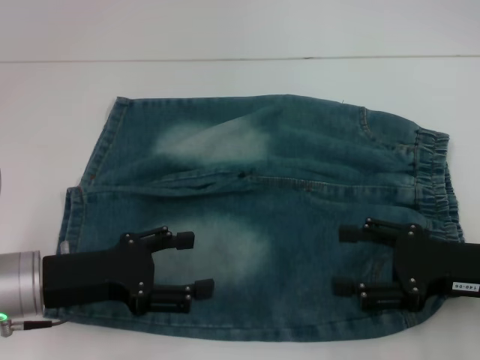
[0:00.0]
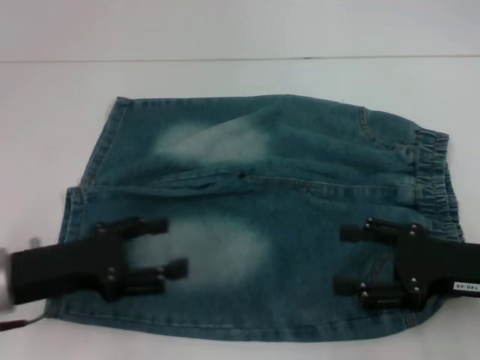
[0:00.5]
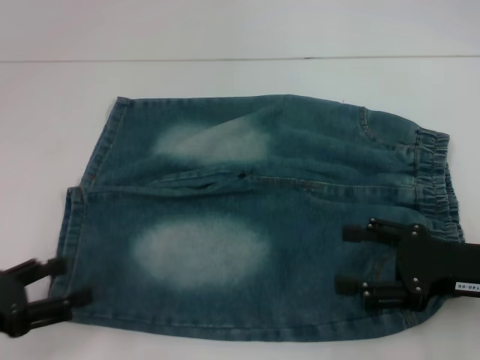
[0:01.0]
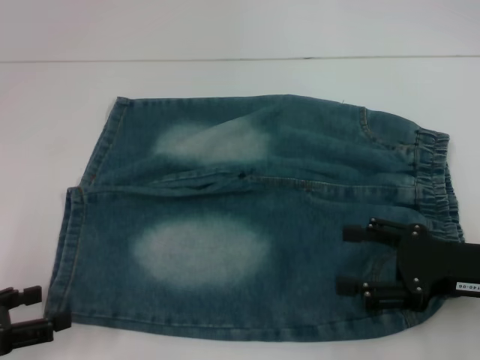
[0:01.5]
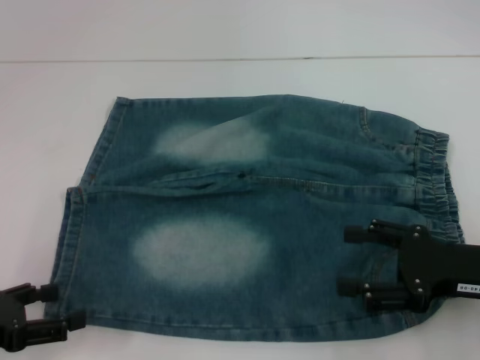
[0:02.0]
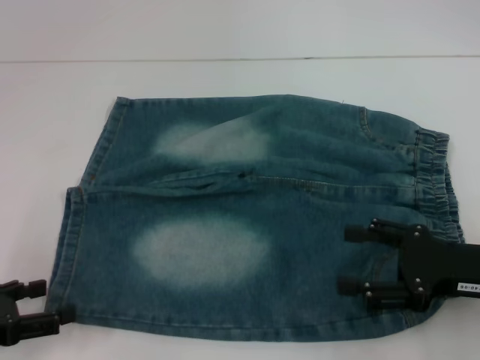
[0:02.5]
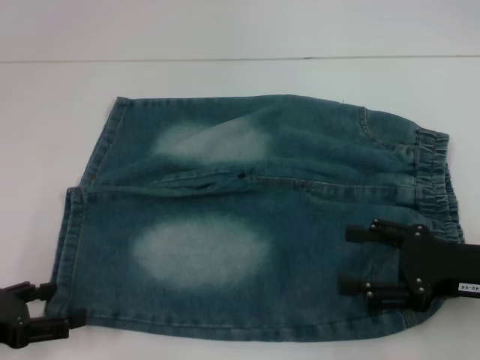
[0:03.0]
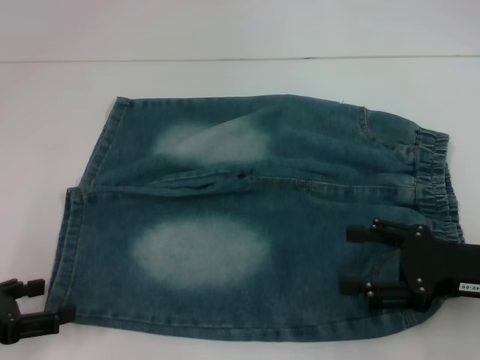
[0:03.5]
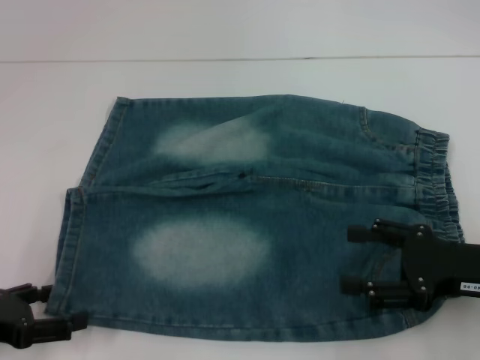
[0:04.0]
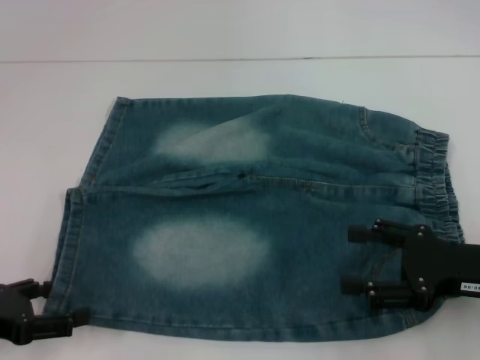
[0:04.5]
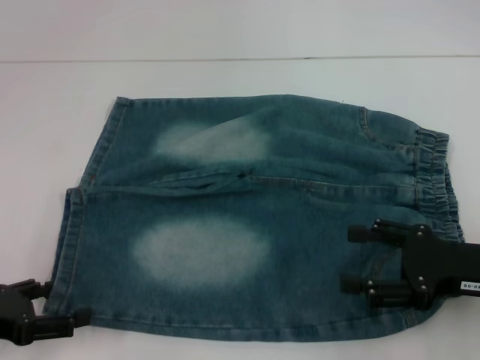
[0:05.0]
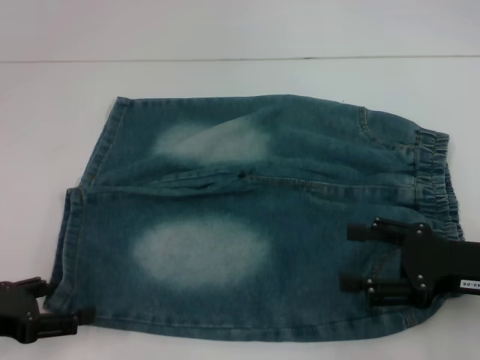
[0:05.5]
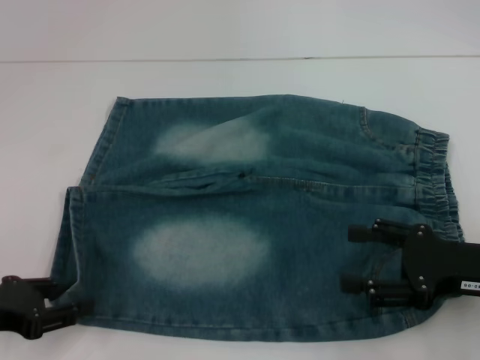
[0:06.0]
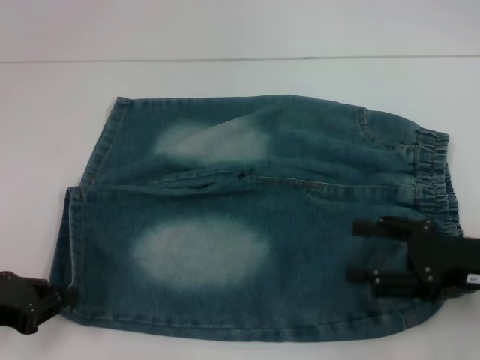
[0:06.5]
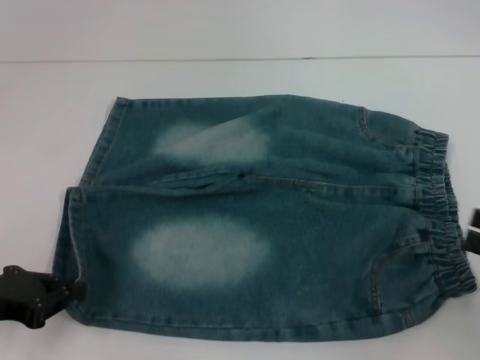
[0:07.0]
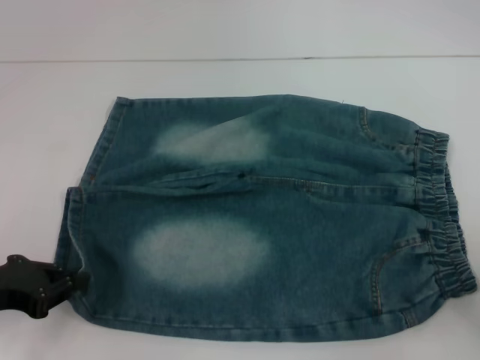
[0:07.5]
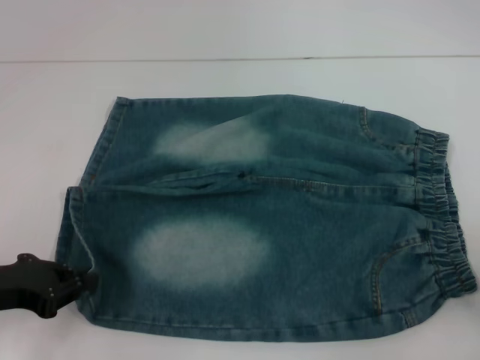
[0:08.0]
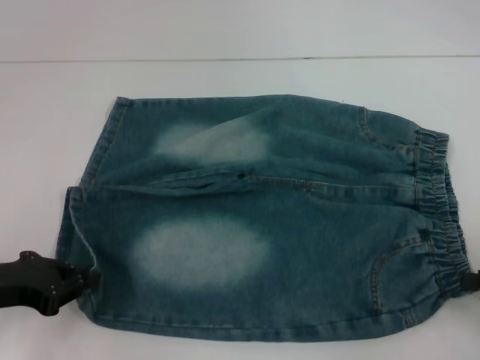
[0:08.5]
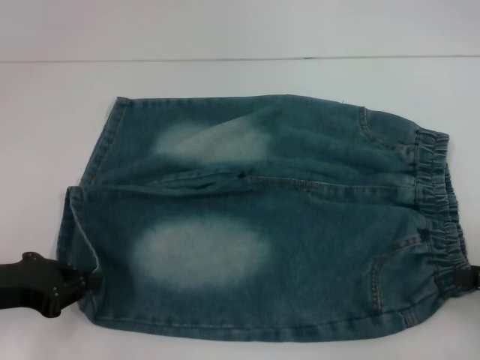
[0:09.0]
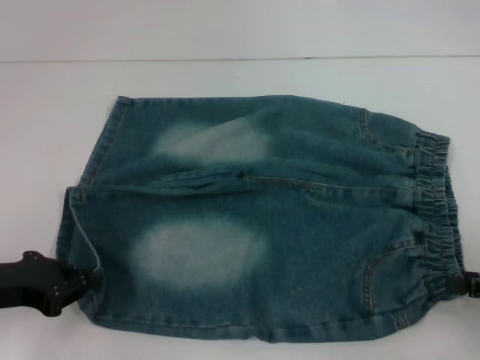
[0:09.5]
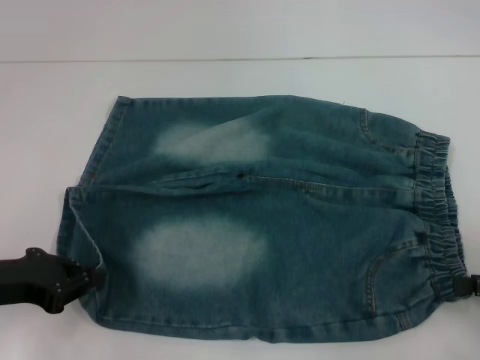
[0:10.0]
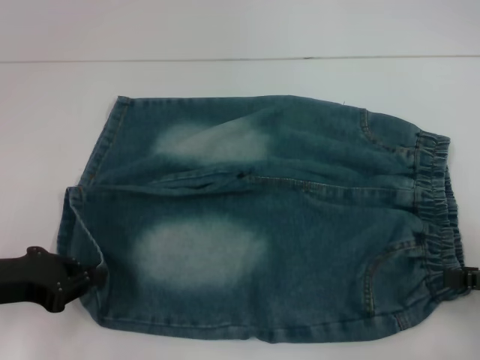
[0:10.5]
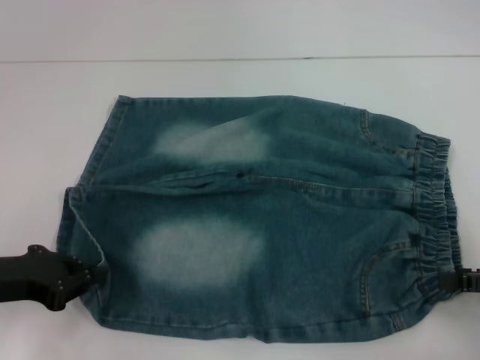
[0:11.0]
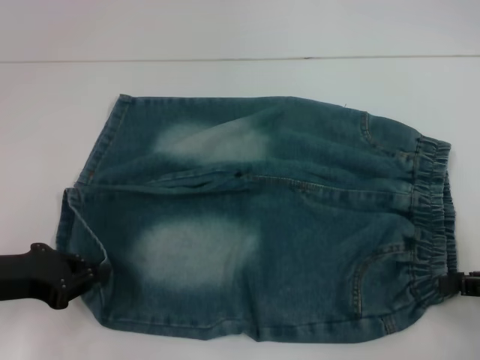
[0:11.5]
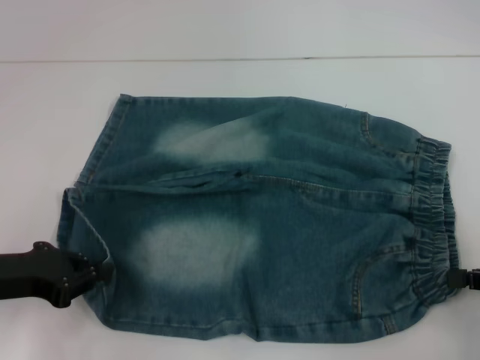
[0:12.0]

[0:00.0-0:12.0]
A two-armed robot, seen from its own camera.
Step, 0:00.0 to 0:06.5: Grab the lower left pant leg with your left hand.
Step, 0:07.0 to 0:11.5: Hold the lower right waistband with your right hand.
0:00.0 to 0:02.0: The left gripper moves to the left and backward, about 10 cm.
0:04.0 to 0:06.0: The grippers move only a little.
0:06.0 to 0:08.0: The right gripper is displaced to the right by some 15 cm. The left gripper closes.
0:08.0 to 0:10.0: The grippers stay close to where they were, moving slightly.
0:10.0 to 0:12.0: The right gripper closes its fingers.

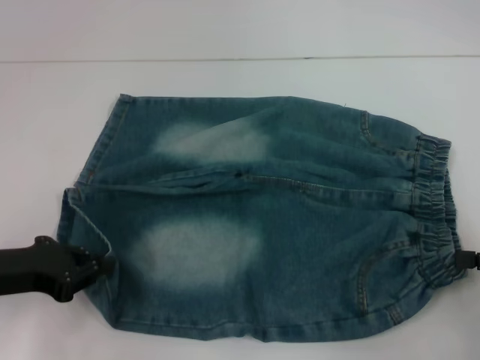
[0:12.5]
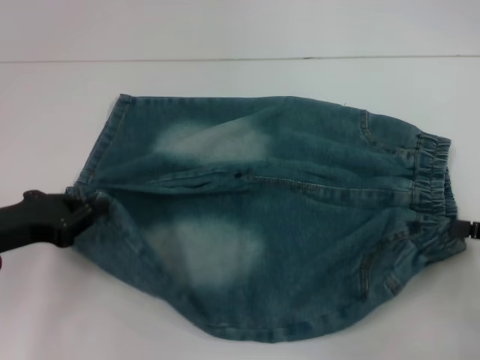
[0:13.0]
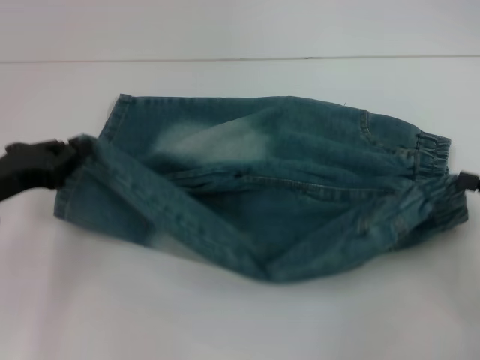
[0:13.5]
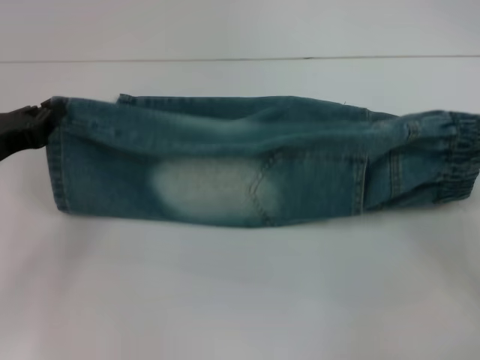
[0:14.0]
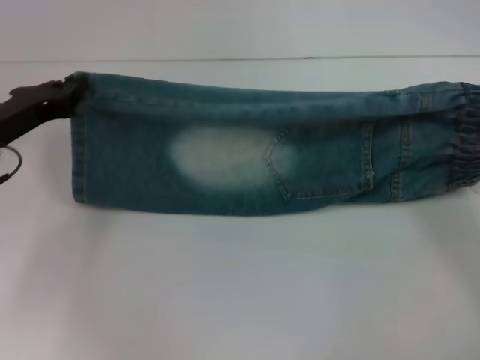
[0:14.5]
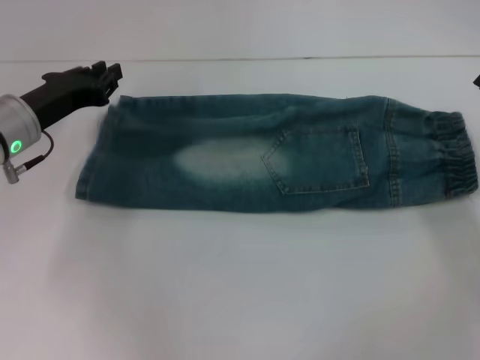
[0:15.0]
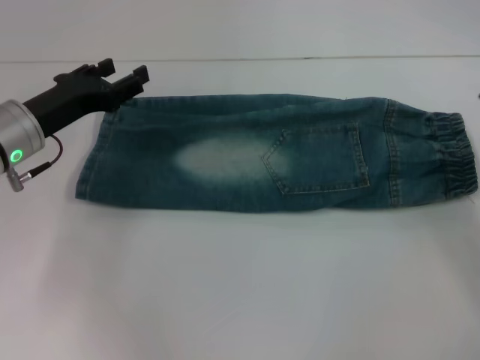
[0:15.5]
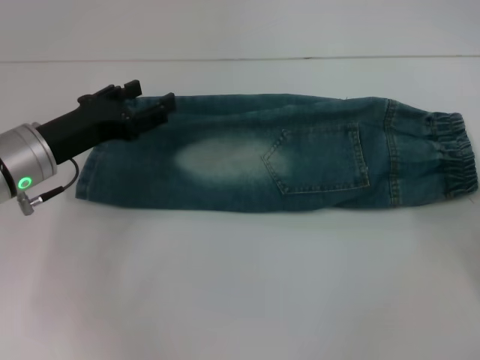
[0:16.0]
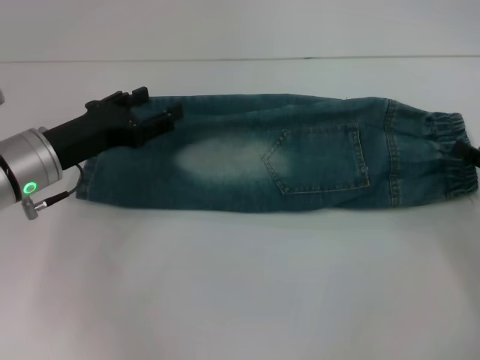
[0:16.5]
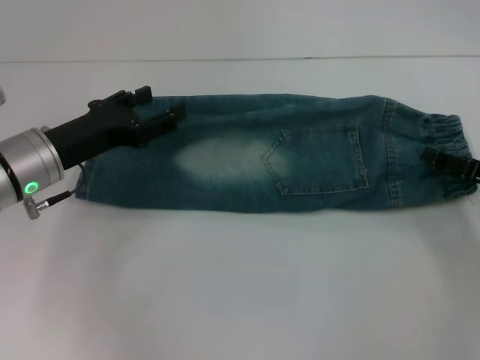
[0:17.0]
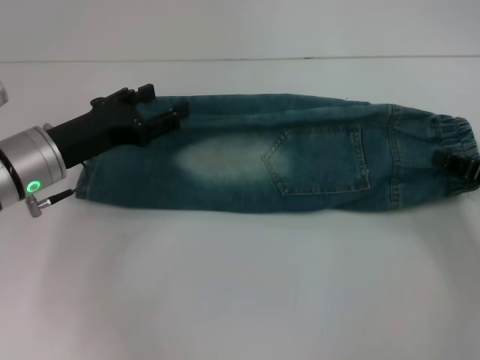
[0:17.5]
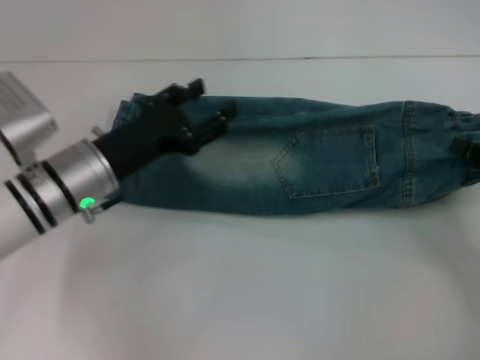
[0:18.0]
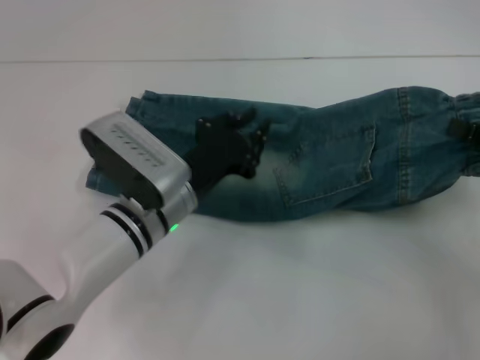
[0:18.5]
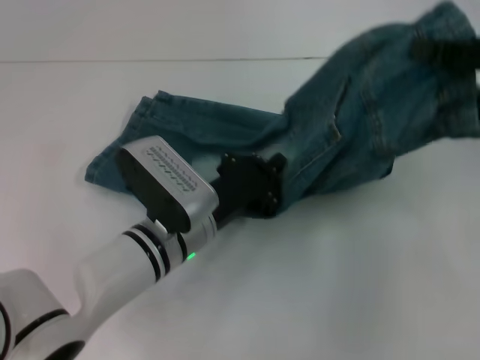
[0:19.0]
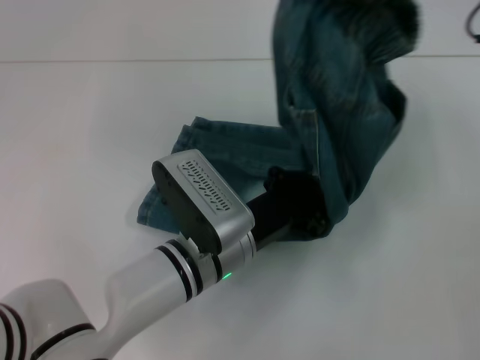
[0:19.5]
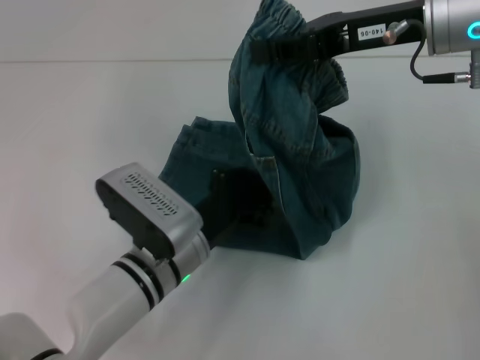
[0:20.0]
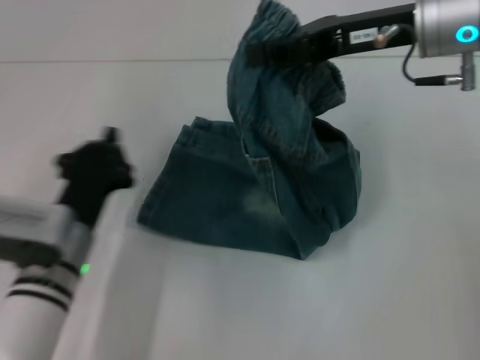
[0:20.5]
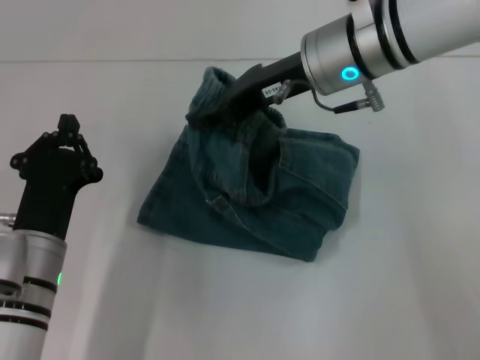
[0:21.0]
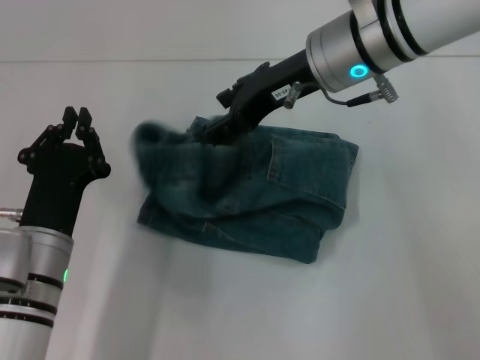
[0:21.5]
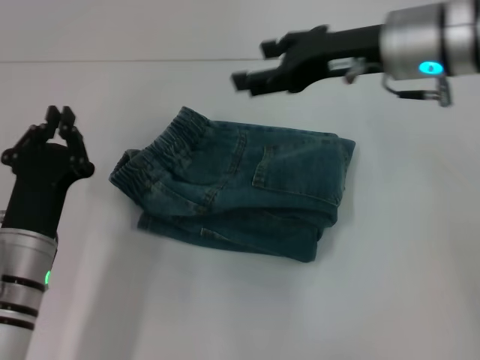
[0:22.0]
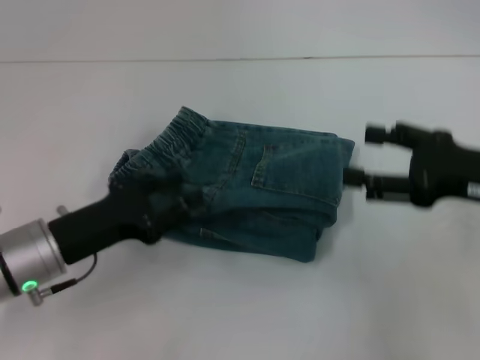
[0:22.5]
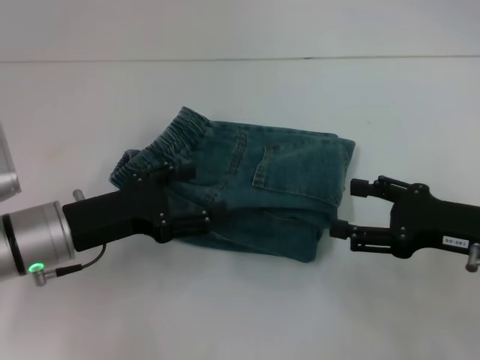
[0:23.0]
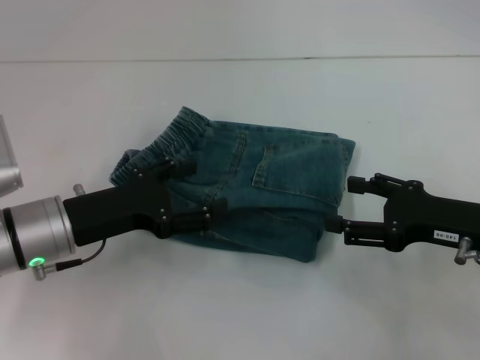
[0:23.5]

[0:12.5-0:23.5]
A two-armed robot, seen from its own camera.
Step, 0:12.5 to 0:15.5: Fold upward with your right hand.
Step, 0:16.0 to 0:18.0: Grab the waistband with your right hand.
Step, 0:18.5 to 0:19.5: Press the middle of the pants with your left hand.
Step, 0:20.0 to 0:21.5: Fold to the left with your right hand.
0:12.5 to 0:14.5: The left gripper moves forward, approximately 10 cm; the right gripper goes roughly 5 cm forward.
0:14.5 to 0:16.0: The right gripper opens. Meanwhile the left gripper opens its fingers.
0:16.0 to 0:18.0: The left gripper shifts roughly 5 cm to the right; the right gripper closes.
0:18.0 to 0:20.0: The right gripper moves to the left, upward and forward, about 25 cm. Meanwhile the left gripper goes approximately 10 cm to the right, downward and backward, and closes.
0:20.0 to 0:21.5: Both grippers travel together to the left, approximately 10 cm. The right gripper opens.
0:21.5 to 0:23.5: The right gripper is displaced to the right, backward and downward by roughly 25 cm. The left gripper ends up some 5 cm from where it was, and opens.
